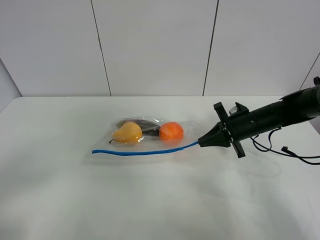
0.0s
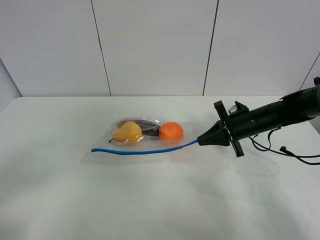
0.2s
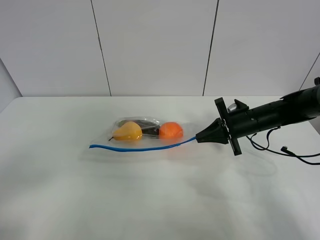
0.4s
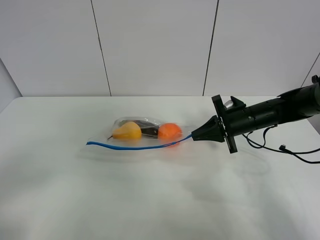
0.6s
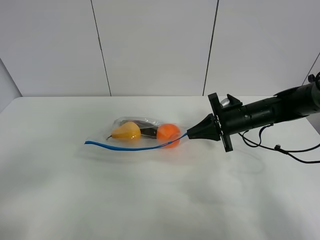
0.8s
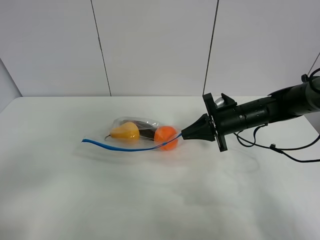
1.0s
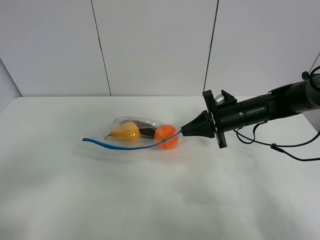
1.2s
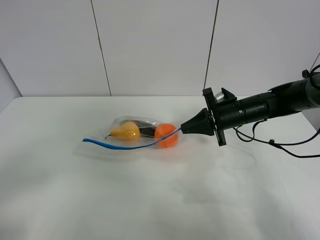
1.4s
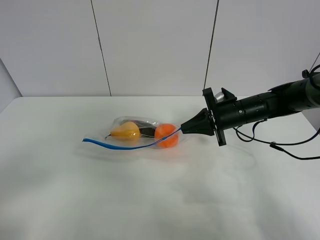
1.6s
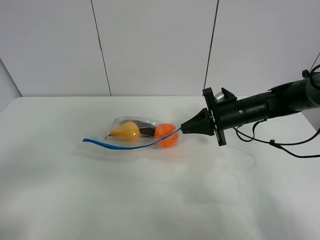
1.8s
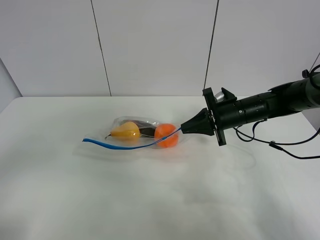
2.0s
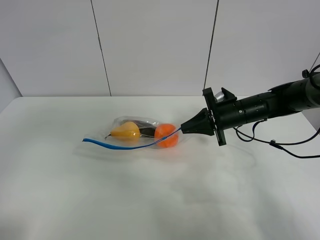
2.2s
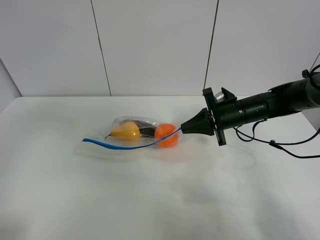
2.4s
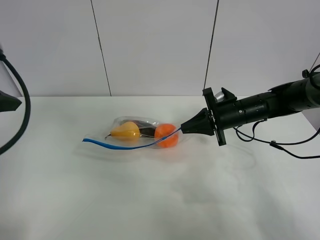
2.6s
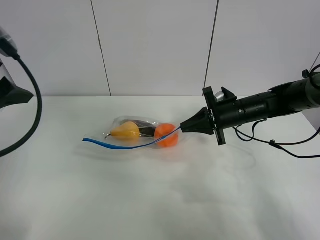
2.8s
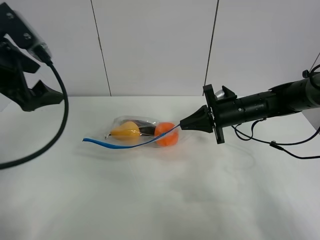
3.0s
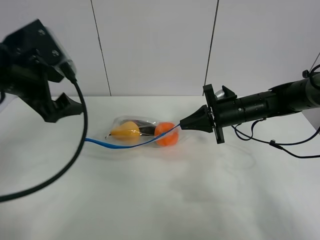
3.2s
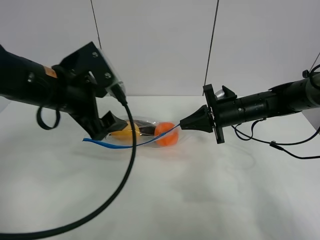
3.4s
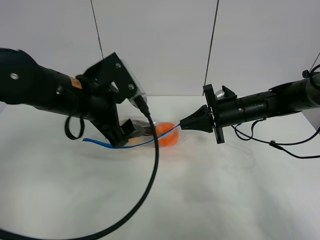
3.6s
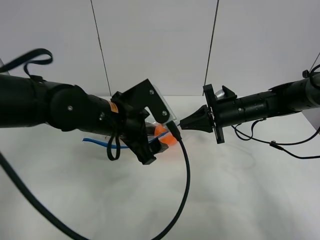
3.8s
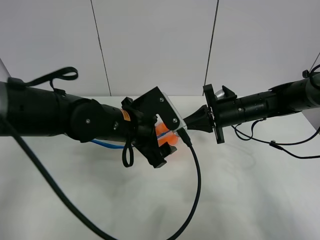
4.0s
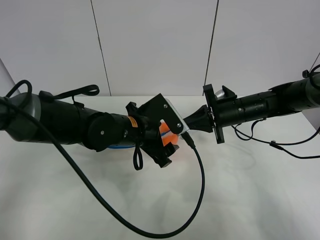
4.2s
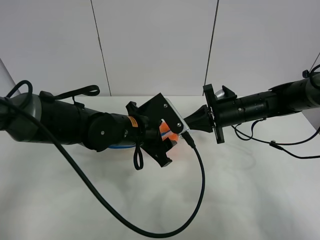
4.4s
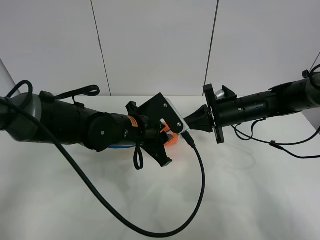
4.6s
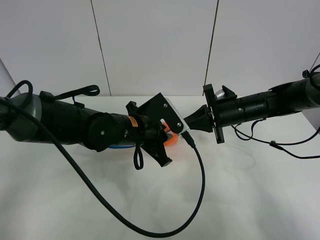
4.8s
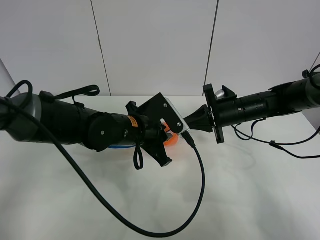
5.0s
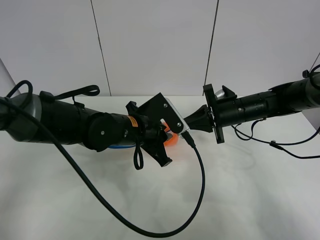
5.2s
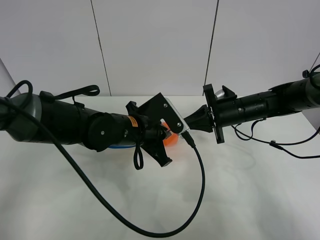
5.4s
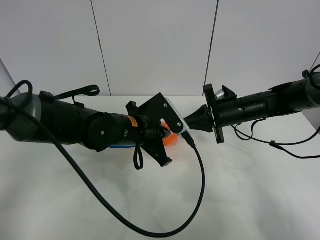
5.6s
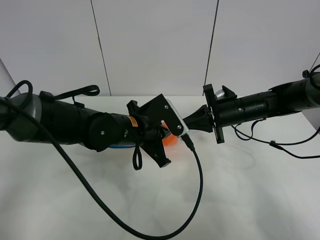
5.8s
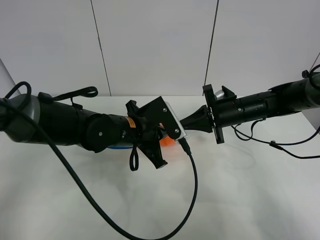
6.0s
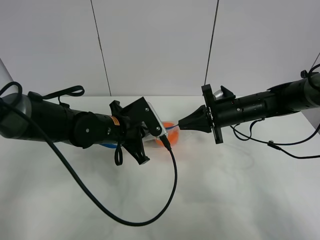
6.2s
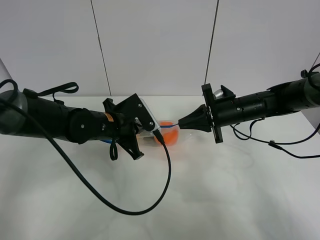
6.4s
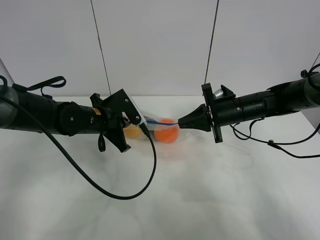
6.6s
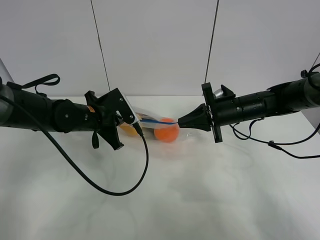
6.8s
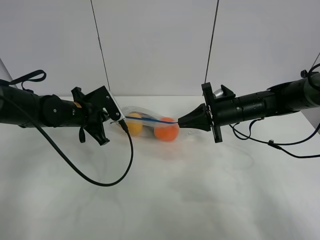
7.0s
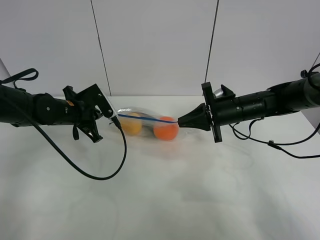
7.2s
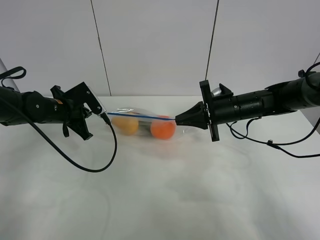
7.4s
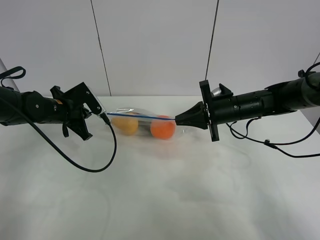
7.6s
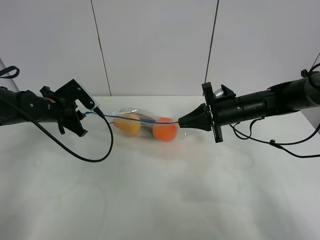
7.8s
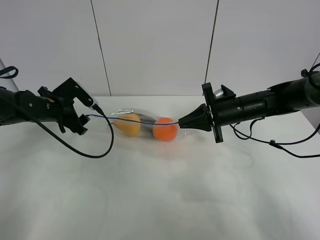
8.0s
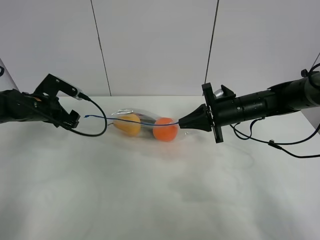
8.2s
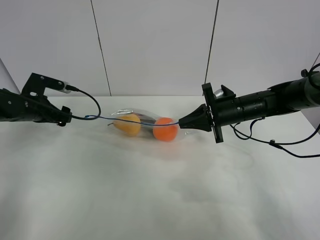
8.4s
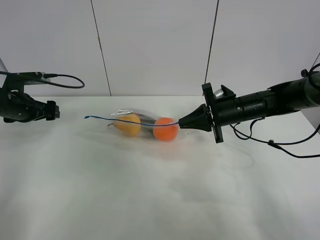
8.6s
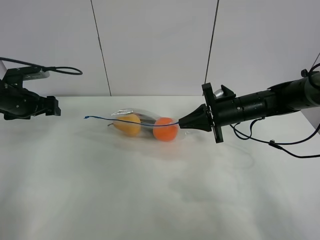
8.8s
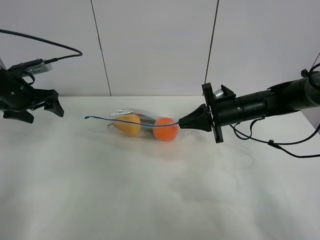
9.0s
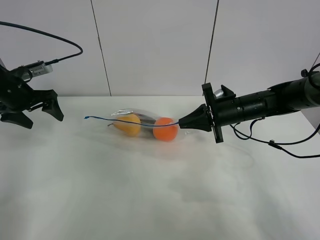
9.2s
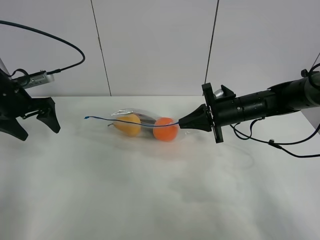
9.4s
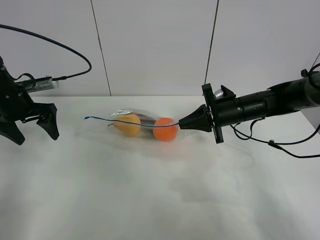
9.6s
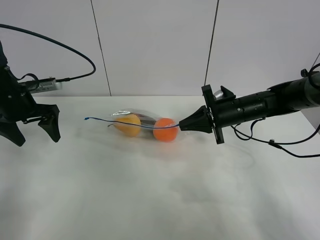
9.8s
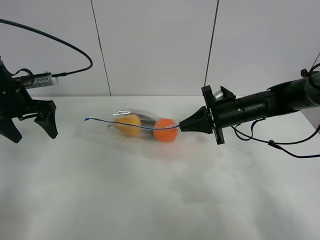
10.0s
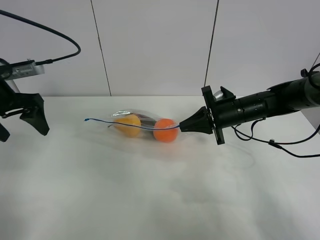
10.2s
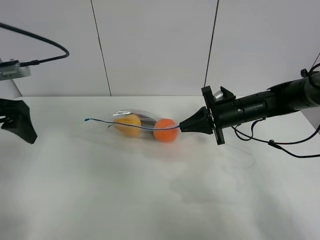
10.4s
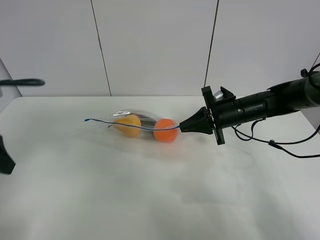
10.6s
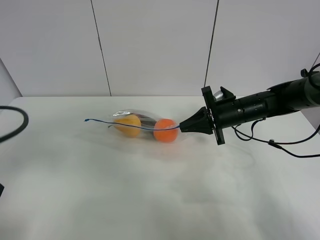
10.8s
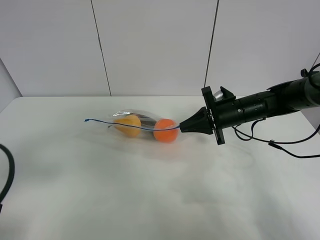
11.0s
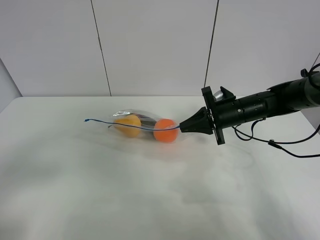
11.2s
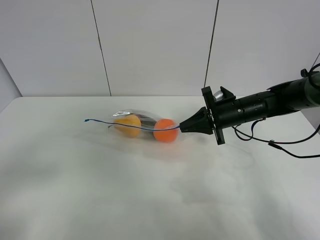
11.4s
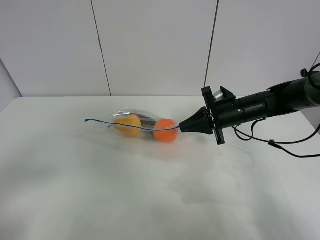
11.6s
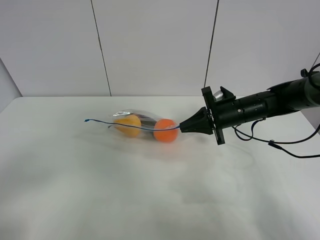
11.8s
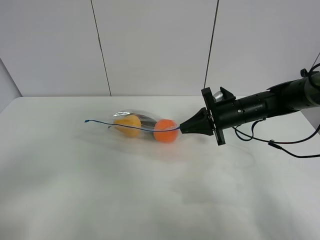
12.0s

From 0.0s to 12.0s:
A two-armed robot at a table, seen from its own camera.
Step, from 0.2s to 1.8s: Lift the fruit bag with your right gripper.
Step, from 2.0s to 8.0s: Pull the fruit bag with left gripper.
From 0.0s to 1.6s: There are only small adjustments of the grippers.
From 1.6s to 3.0s: The left gripper is displaced forward by approximately 25 cm.
From 3.0s to 4.4s: The left gripper moves to the right and downward, about 25 cm.
From 4.4s to 6.0s: The left gripper closes.
From 6.0s to 7.6s: The left gripper is displaced to the left by roughly 20 cm.
From 7.6s to 9.0s: The left gripper heads to the left and upward, covering about 10 cm, and opens its fingers.
From 9.0s to 10.4s: The left gripper moves backward and upward, roughly 15 cm.
From 10.4s to 12.0s: The left gripper shifts approximately 25 cm backward.

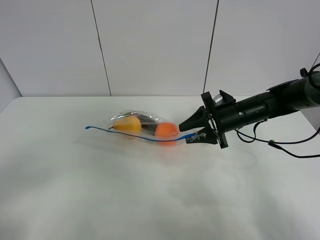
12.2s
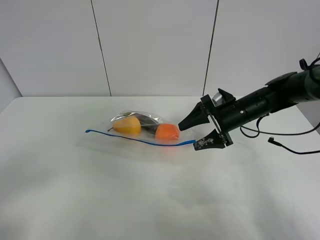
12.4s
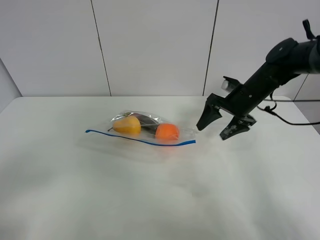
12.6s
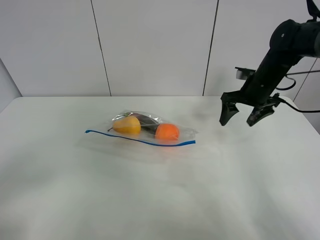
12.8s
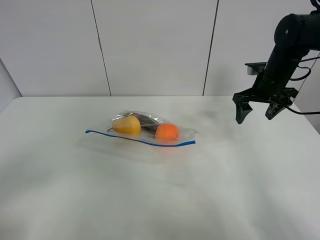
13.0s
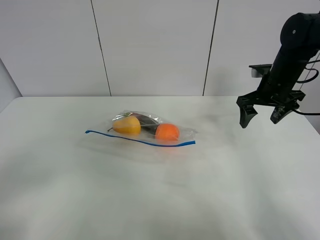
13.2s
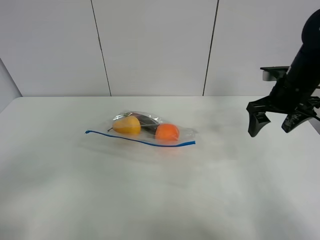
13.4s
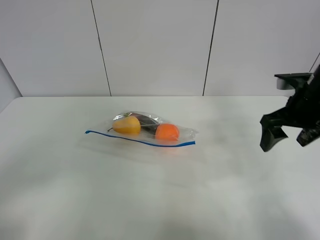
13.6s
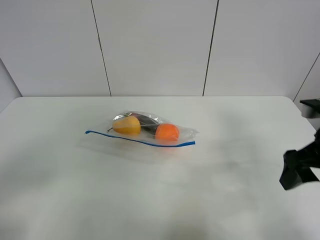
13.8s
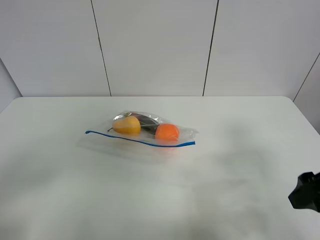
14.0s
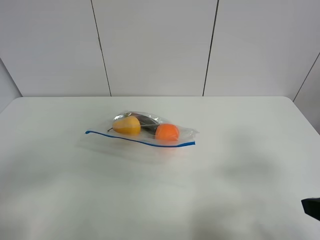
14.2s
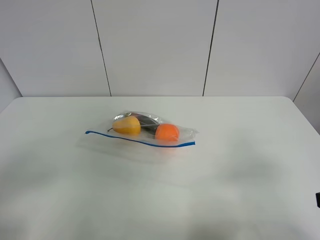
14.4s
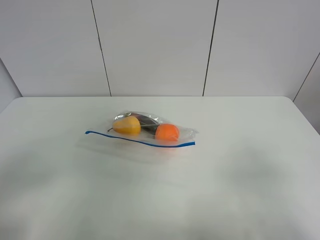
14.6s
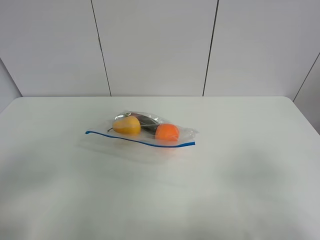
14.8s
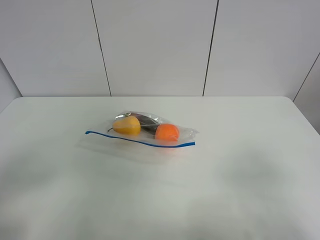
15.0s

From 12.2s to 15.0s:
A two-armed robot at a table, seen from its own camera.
From 12.2s to 13.6s: The right gripper moves upward, backward and to the right, roughly 15 cm.
From 13.6s to 15.0s: The right gripper is displaced backward by about 25 cm.

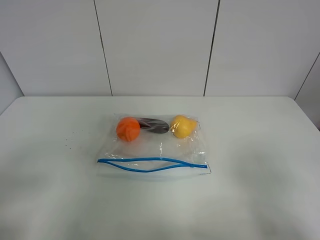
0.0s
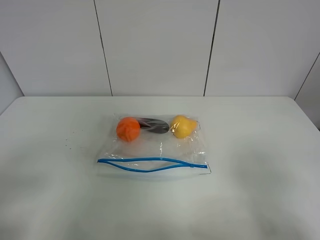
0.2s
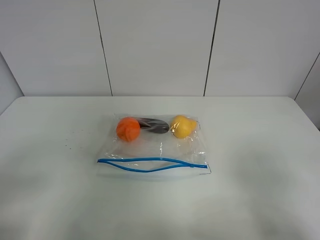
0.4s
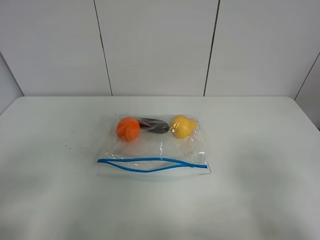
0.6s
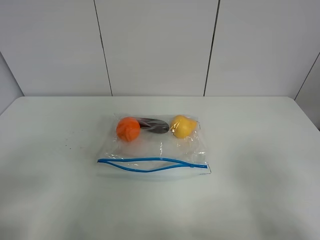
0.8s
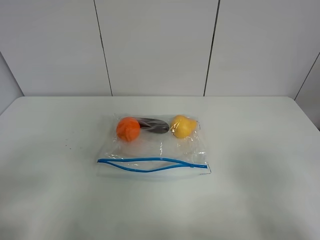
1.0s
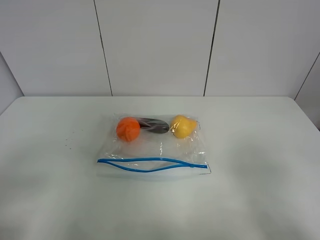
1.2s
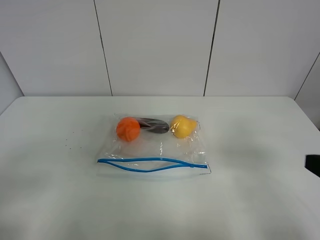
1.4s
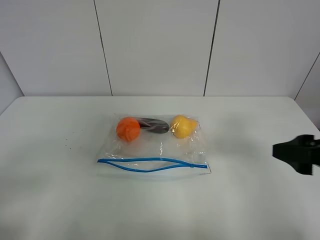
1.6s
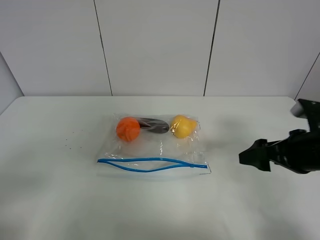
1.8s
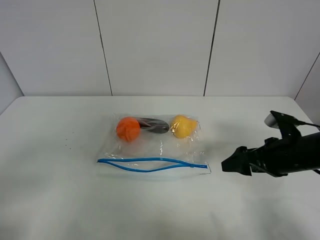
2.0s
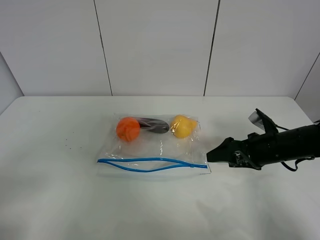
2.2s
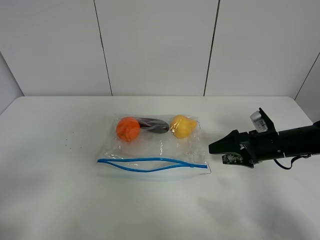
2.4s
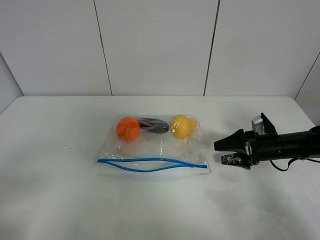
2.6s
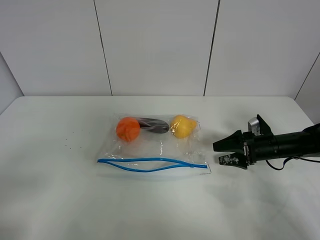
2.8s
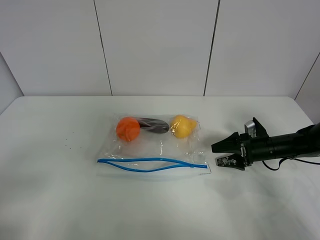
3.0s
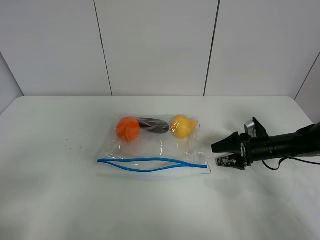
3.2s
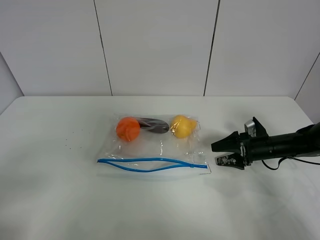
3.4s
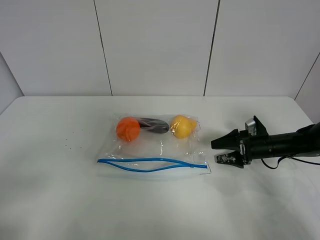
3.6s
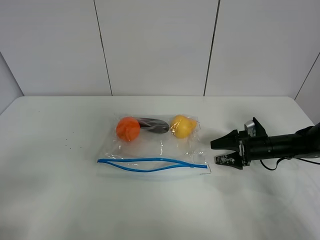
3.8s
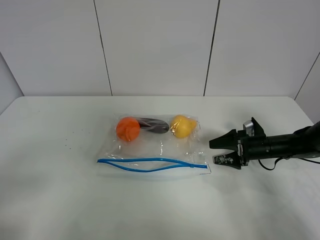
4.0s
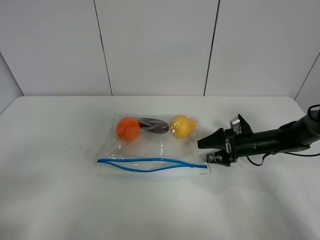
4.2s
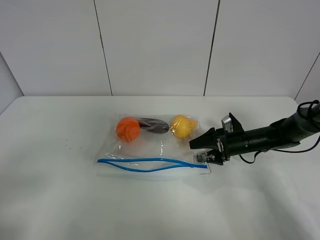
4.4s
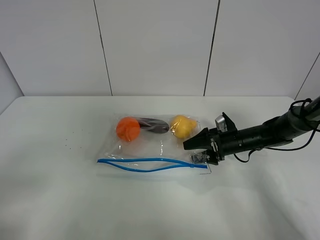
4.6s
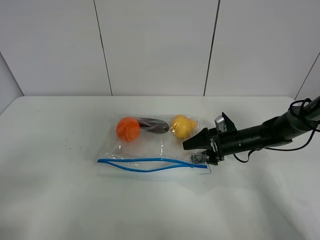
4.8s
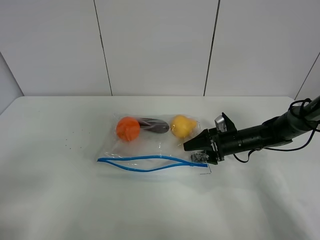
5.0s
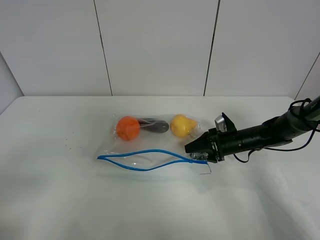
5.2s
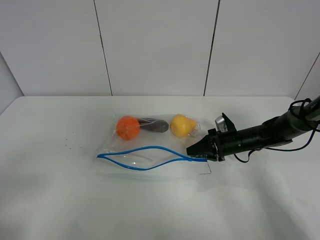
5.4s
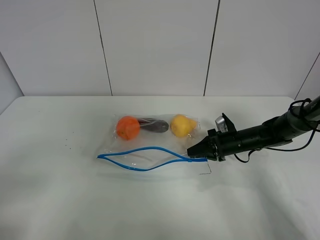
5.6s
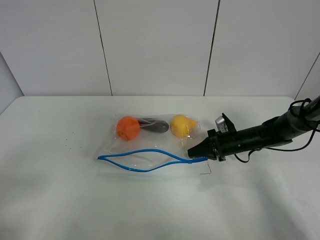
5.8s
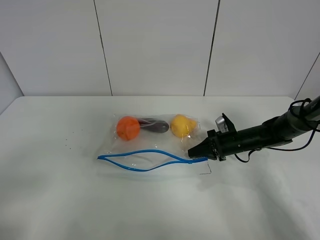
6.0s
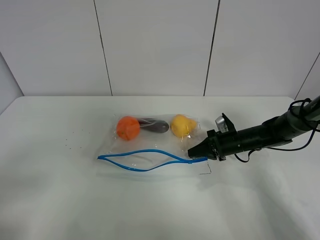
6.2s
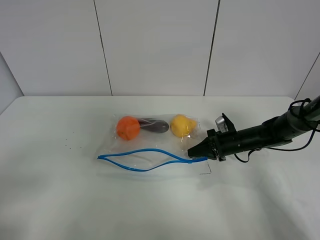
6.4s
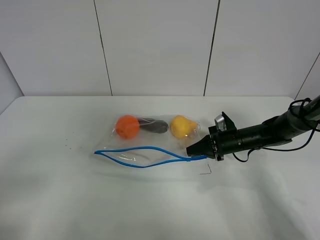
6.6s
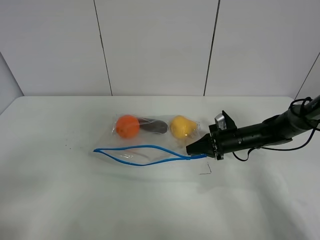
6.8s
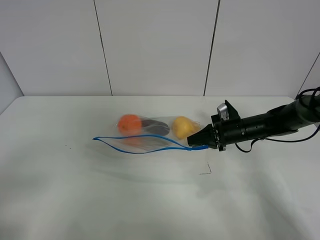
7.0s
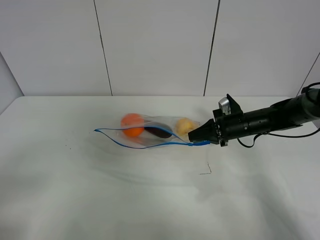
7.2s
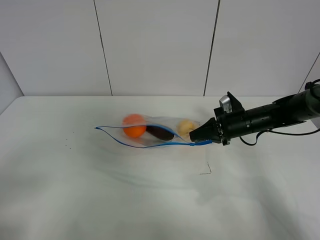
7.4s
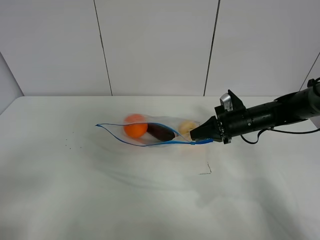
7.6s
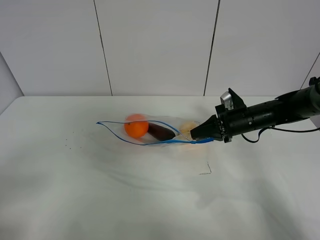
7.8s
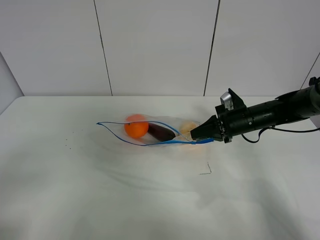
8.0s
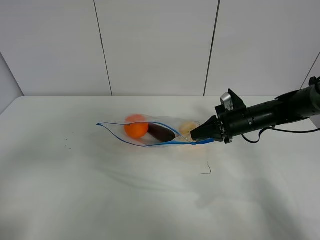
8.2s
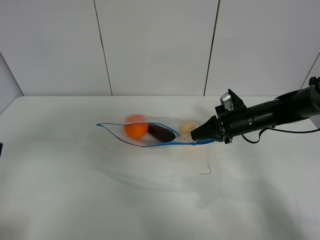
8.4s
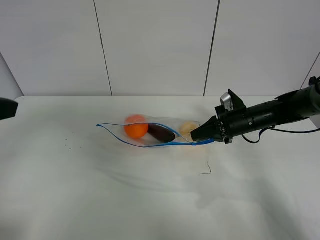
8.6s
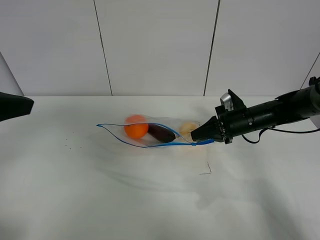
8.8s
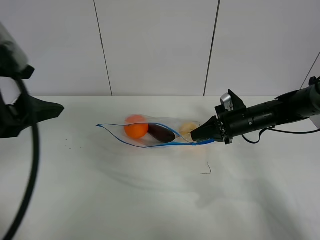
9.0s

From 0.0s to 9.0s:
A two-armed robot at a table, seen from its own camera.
Step, from 0.0s to 5.6s: Grasp the fruit bag with right gripper.
Step, from 5.8s to 8.0s: Lift the fruit bag with your right gripper.
From 0.0s to 1.6s: The right gripper heads forward, covering roughly 15 cm.
From 1.6s to 3.0s: The right gripper is displaced downward and forward by some 30 cm.
From 3.0s to 4.4s: The right gripper goes approximately 5 cm to the left.
From 4.4s to 6.0s: The right gripper closes up.
From 6.0s to 7.6s: The right gripper shifts approximately 10 cm upward.
From 7.6s to 9.0s: The left gripper shifts approximately 20 cm forward, to the right and upward.
